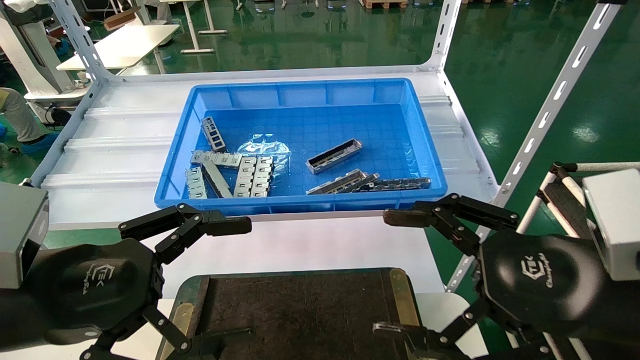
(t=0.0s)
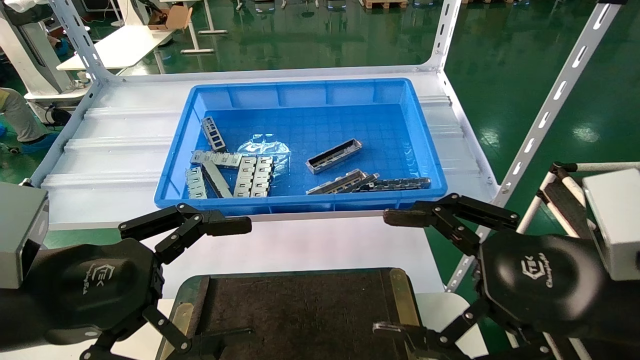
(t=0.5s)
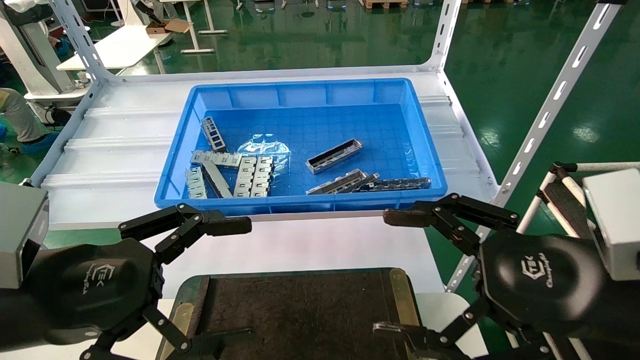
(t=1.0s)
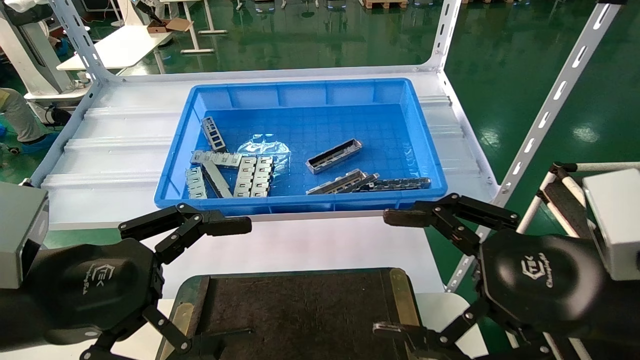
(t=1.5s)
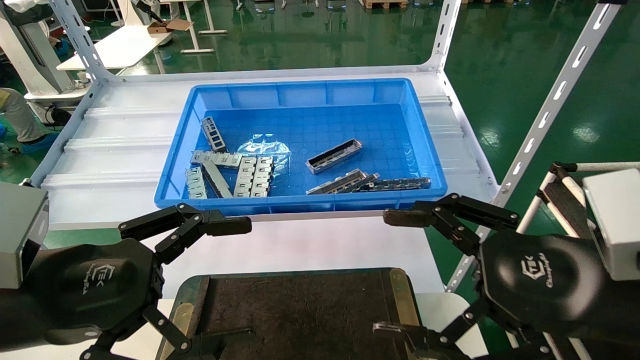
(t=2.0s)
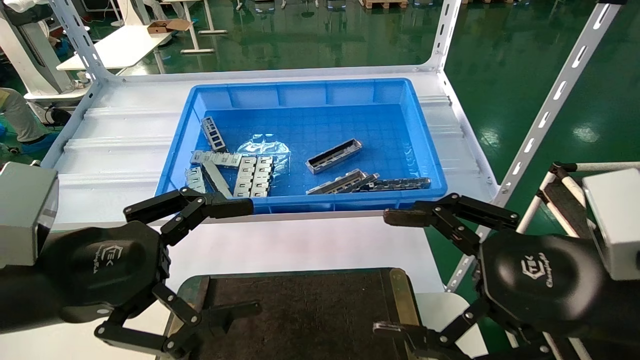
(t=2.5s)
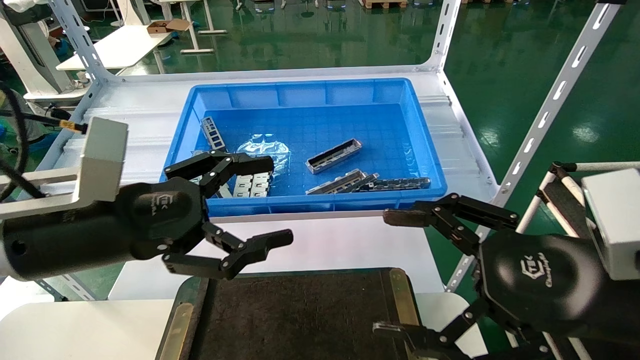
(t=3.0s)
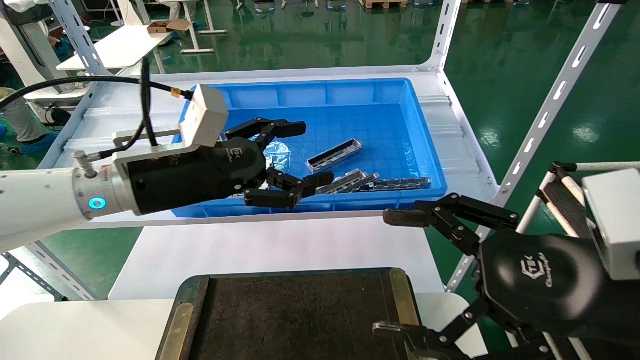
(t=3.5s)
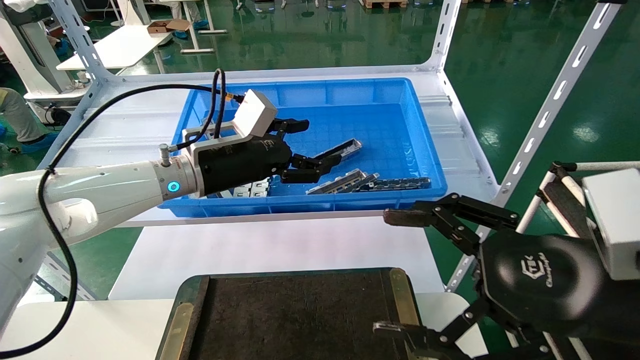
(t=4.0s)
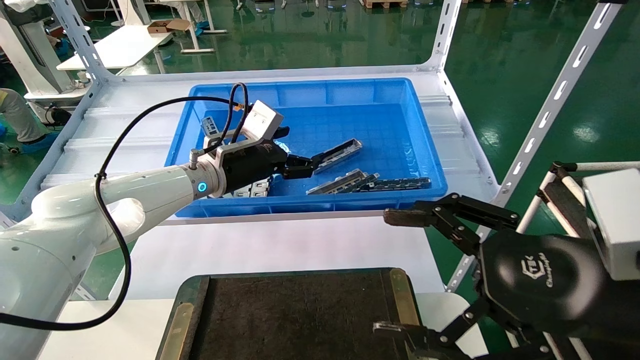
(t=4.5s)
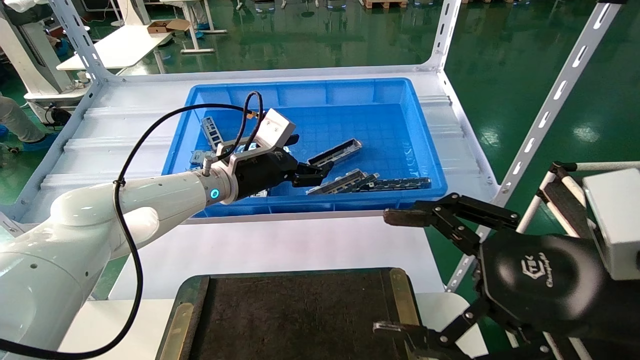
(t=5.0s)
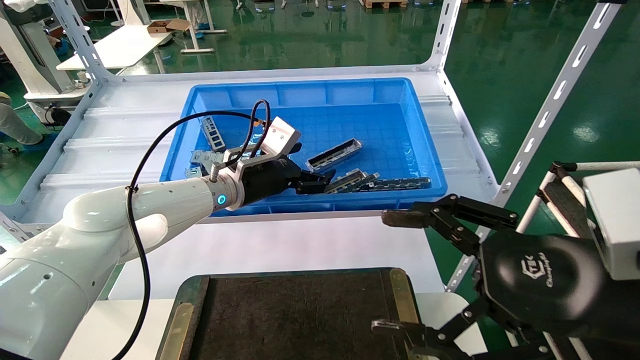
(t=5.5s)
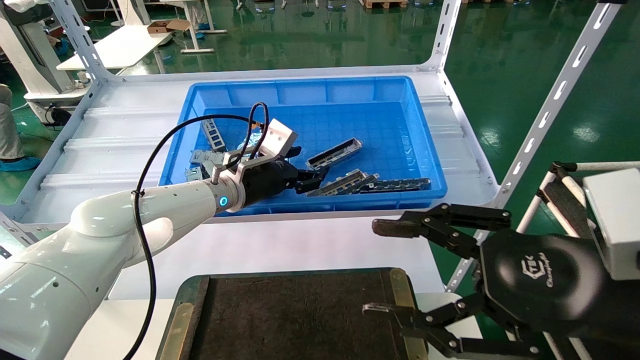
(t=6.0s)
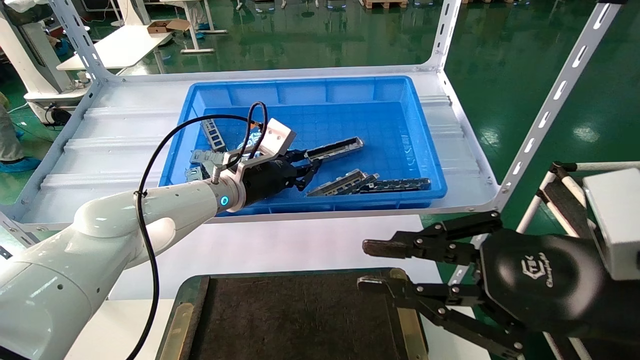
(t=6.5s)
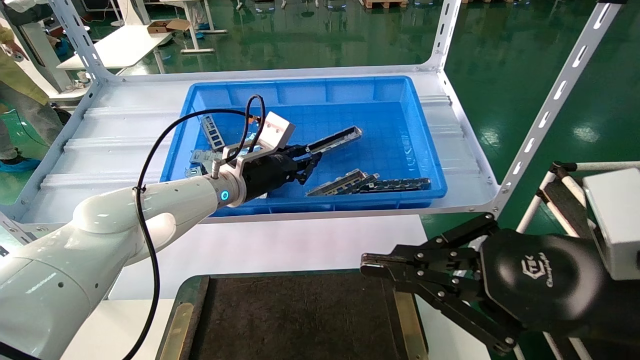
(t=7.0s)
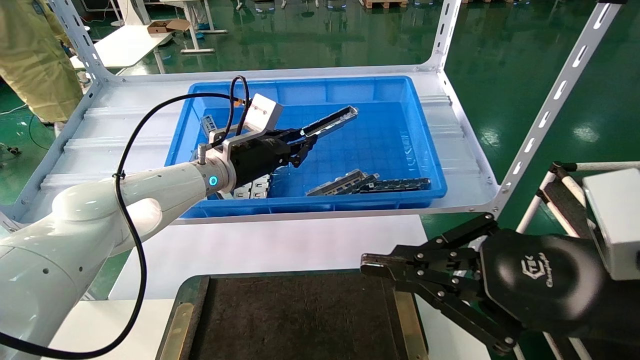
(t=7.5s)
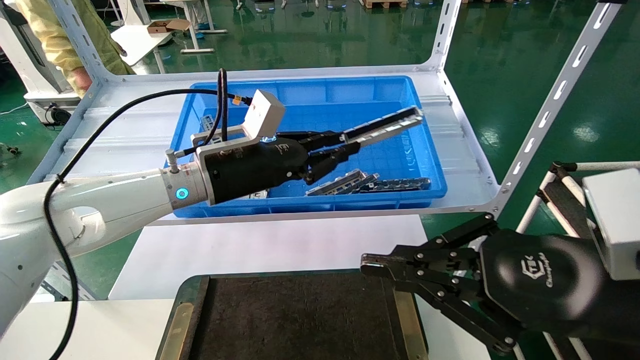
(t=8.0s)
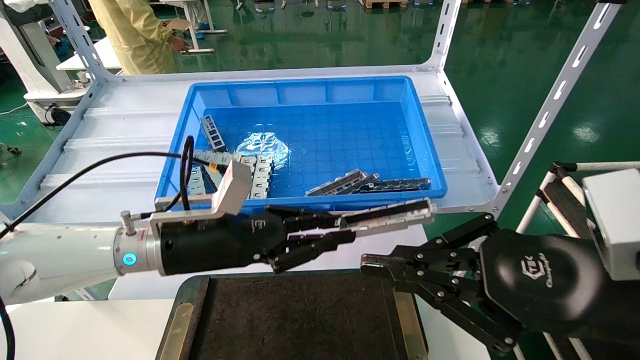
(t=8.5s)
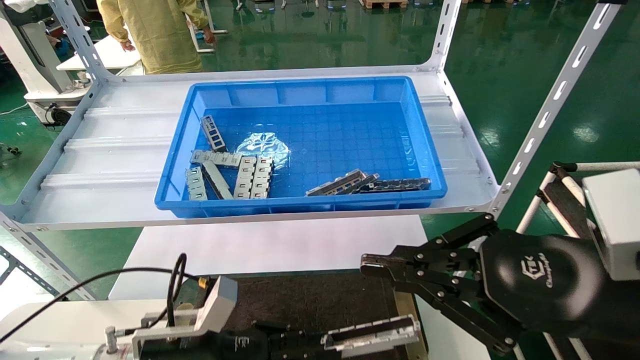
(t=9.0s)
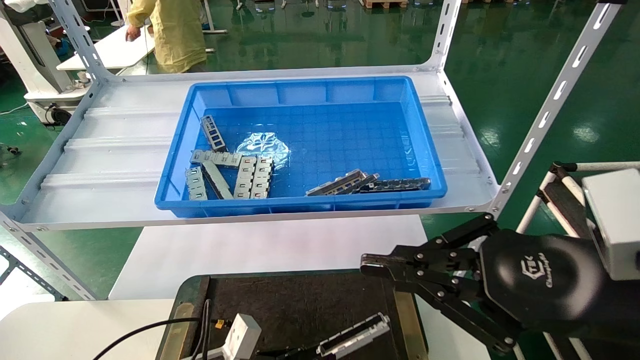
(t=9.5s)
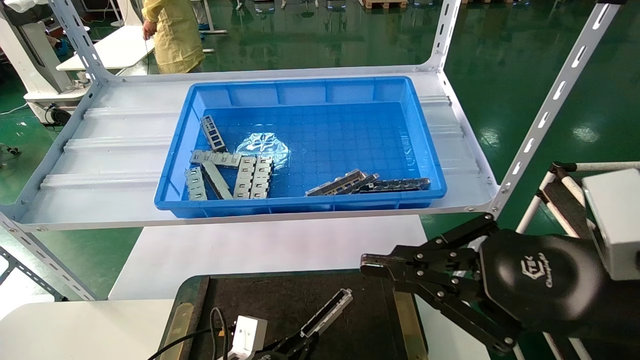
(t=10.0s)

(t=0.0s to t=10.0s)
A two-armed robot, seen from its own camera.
Task of the whole recording: Grasp the part with one hand and place it on the black container.
Step, t=2.5s - t=6.5s: Pick up the front USB bracket from the feeding area.
t=0.0s - t=2.0s: Both grippers stay about where they are.
t=2.0s - t=4.0s: The left gripper is displaced forward and to the right by about 25 cm.
t=4.0s - t=6.0s: The left gripper moves forward and downward, some 10 cm.
t=6.0s - t=8.0s: The left gripper is displaced backward by approximately 5 cm, and closes its fingers; the right gripper closes up.
t=8.0s - t=10.0s: The left gripper heads downward, covering about 30 cm.

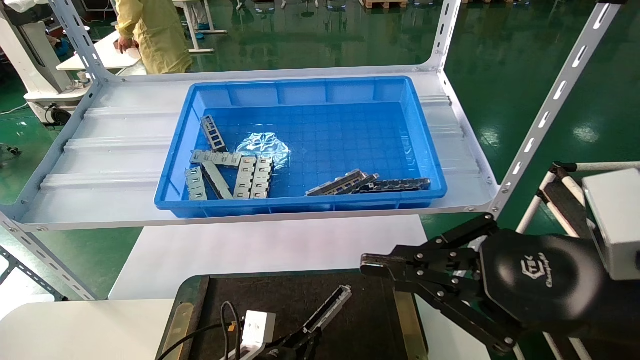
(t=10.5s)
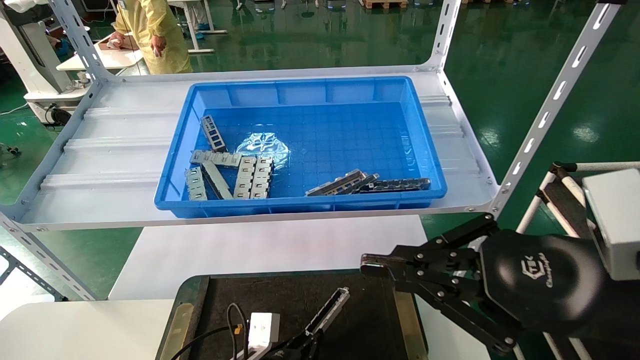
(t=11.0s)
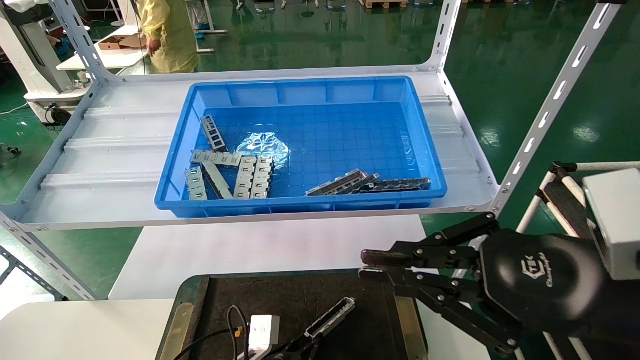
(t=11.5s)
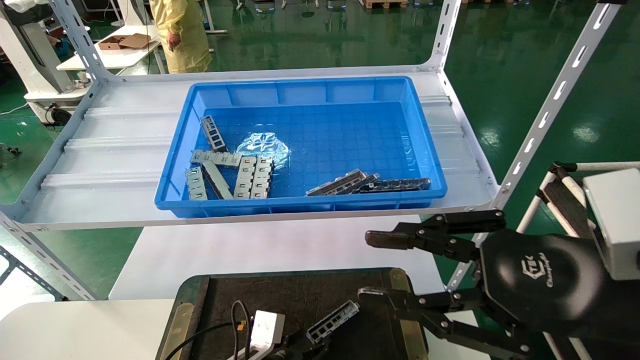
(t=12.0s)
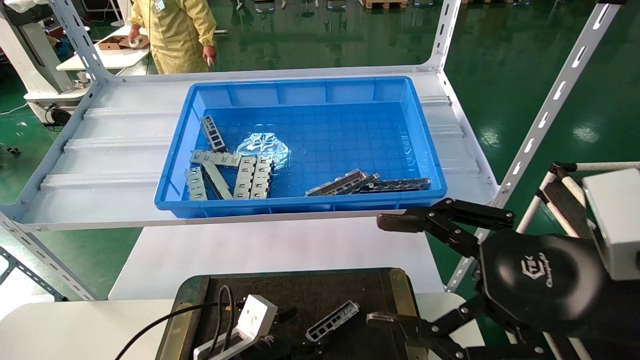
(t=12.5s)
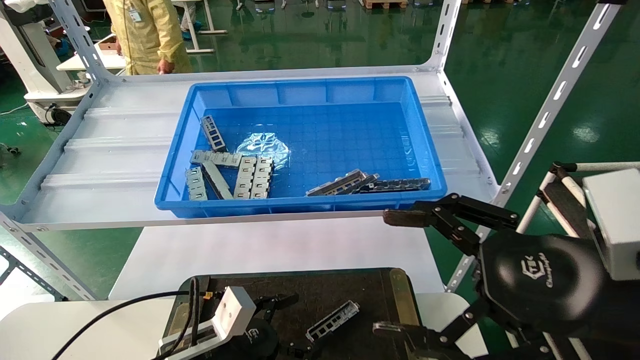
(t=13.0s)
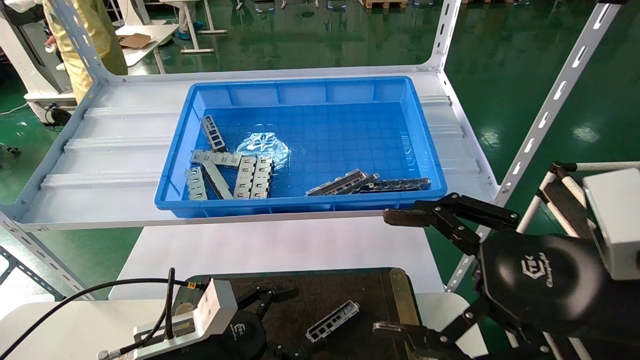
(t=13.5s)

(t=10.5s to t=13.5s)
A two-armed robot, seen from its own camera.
Task of the whole recording: Grasp the part with one hand and place it on the black container.
t=10.5s - t=12.0s: The left gripper opens.
t=12.0s - t=13.5s: The left gripper travels upward and to the left by approximately 15 cm, and opens. The right gripper opens.

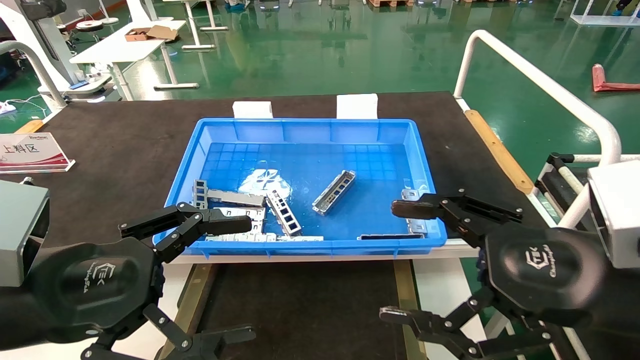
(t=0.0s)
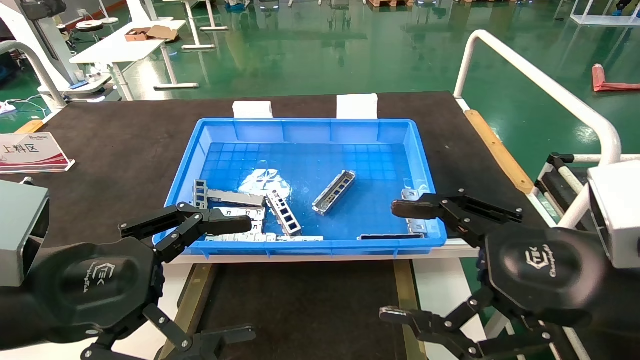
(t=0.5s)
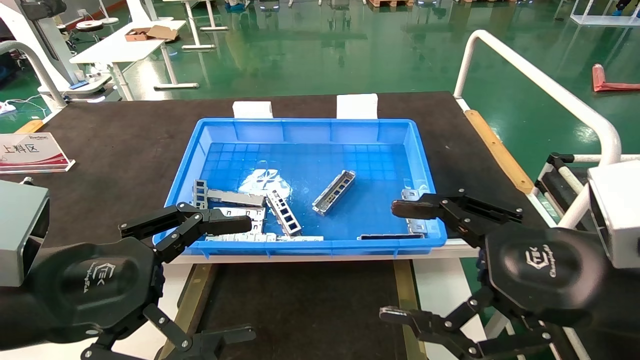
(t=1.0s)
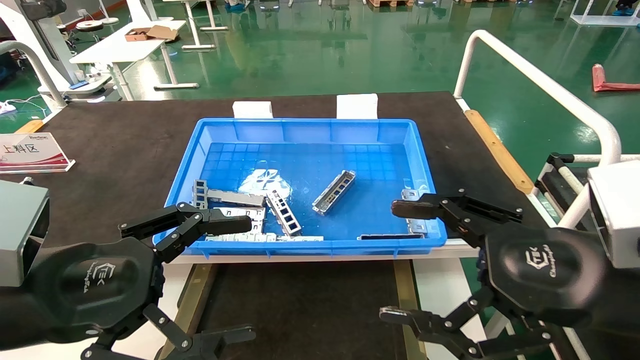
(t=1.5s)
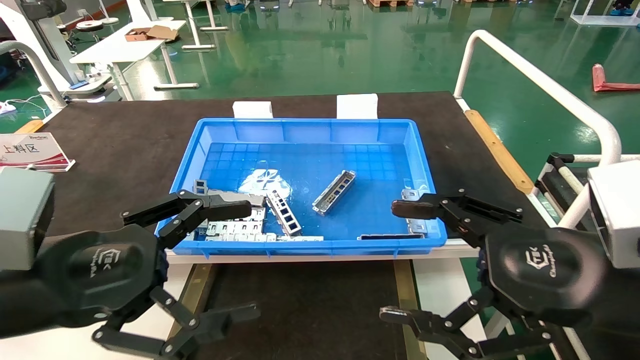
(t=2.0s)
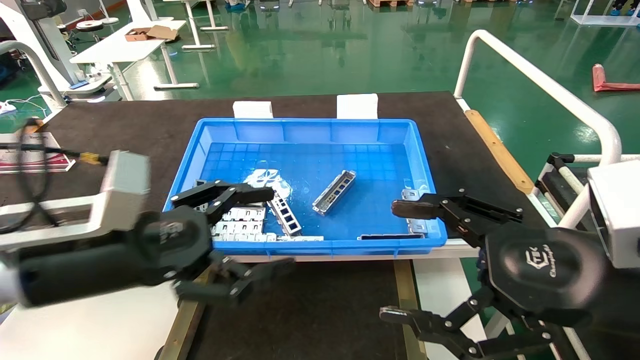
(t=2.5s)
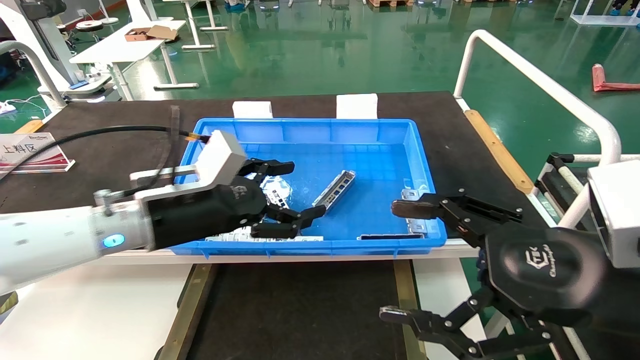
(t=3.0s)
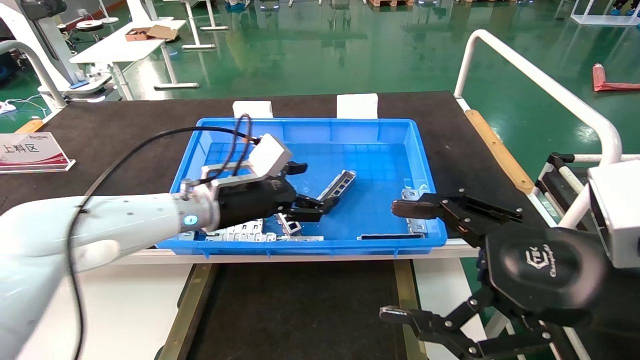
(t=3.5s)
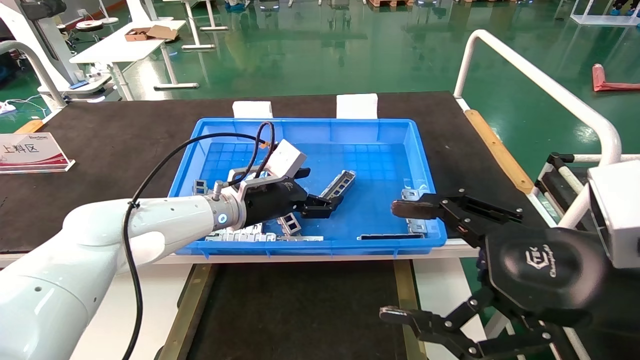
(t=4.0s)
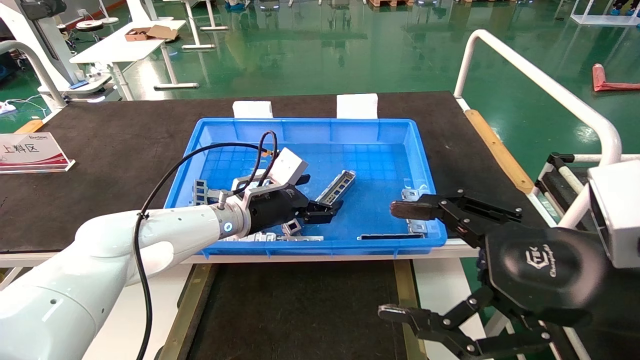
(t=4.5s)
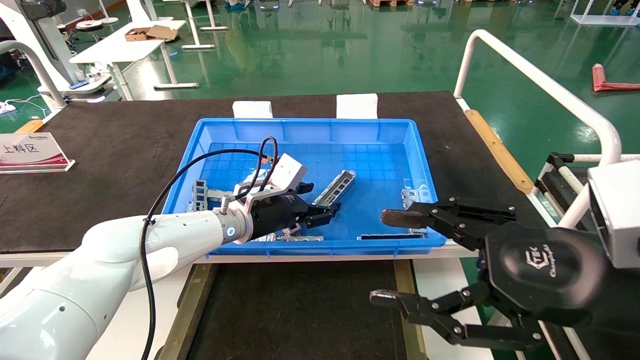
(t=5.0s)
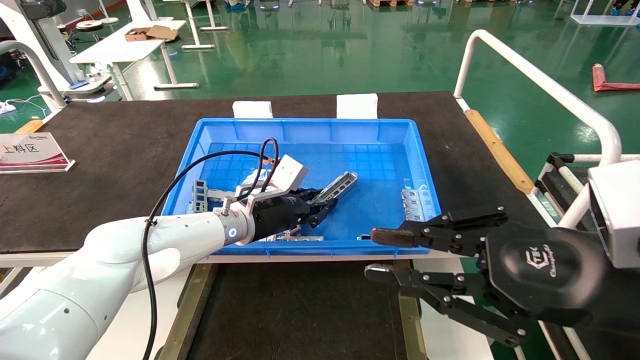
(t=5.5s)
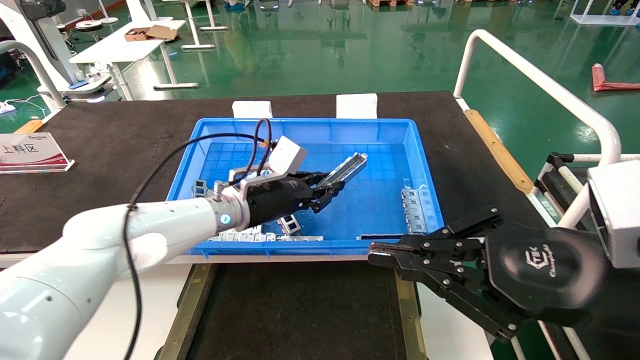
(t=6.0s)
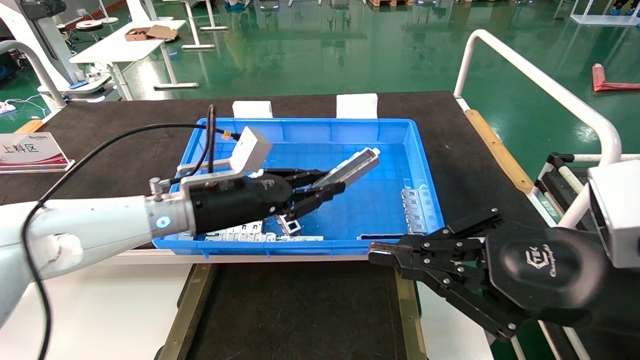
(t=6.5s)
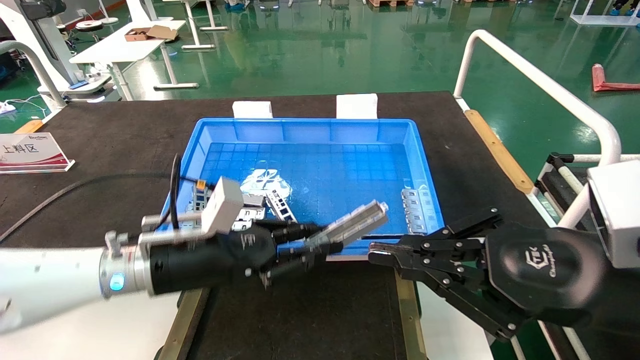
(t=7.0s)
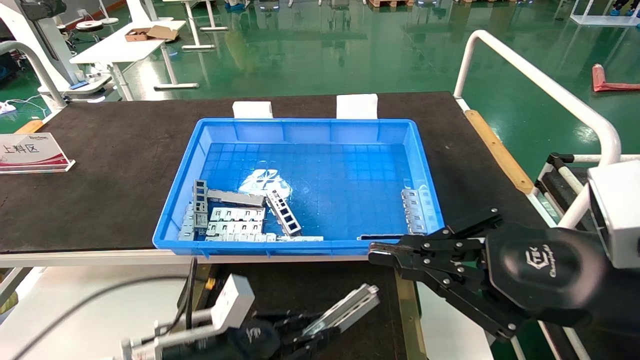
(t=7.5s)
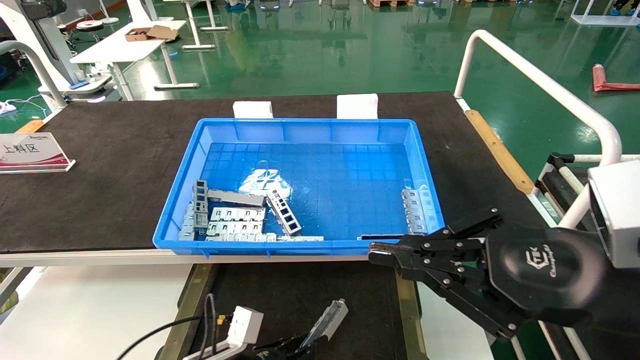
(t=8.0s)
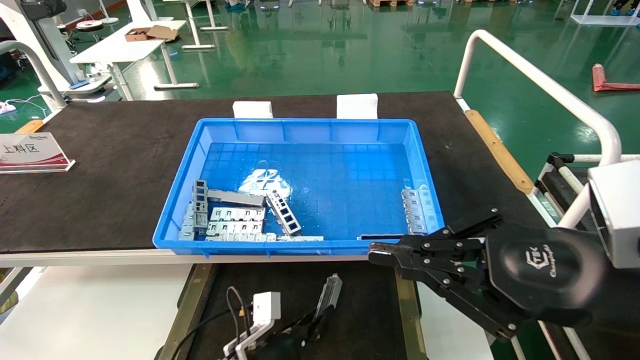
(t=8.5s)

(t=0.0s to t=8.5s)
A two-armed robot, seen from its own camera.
Task of the whole recording: Grasp the part with one hand and place it on the black container.
Step, t=2.0s - t=6.0s: Pick up the front USB bracket from the feeding area.
t=0.0s - t=2.0s: The two grippers keep their place.
t=2.0s - t=4.0s: The left gripper is displaced forward and to the right by some 30 cm.
t=4.0s - t=6.5s: The right gripper closes its fingers. Meanwhile the left gripper shifts roughly 5 cm backward, and closes.
t=6.5s - t=8.5s: The left gripper travels downward by about 30 cm.
